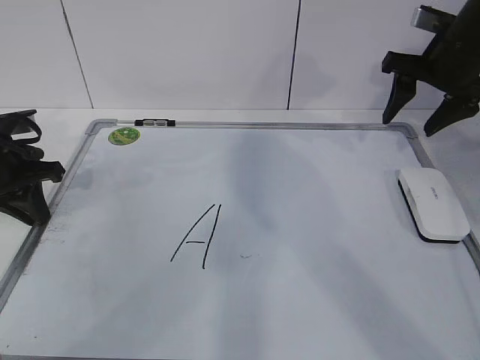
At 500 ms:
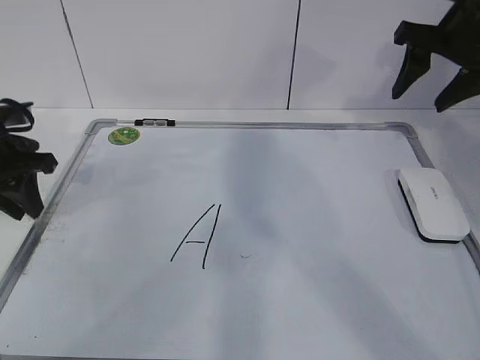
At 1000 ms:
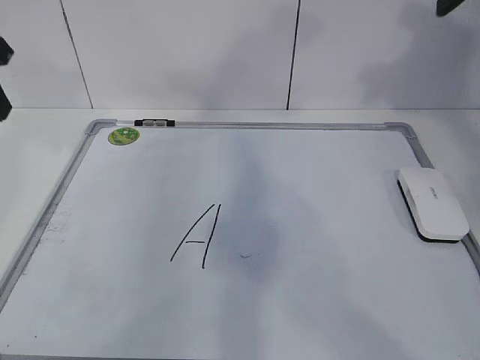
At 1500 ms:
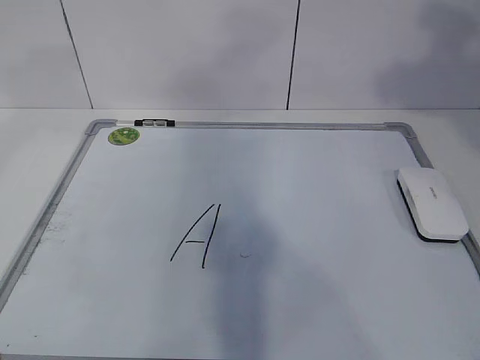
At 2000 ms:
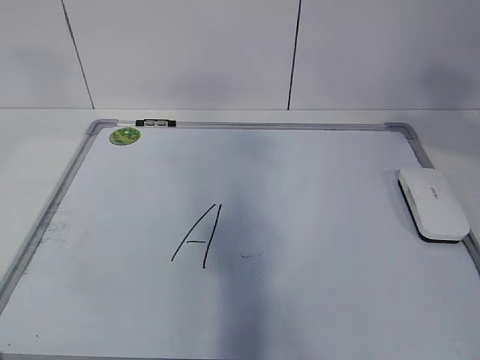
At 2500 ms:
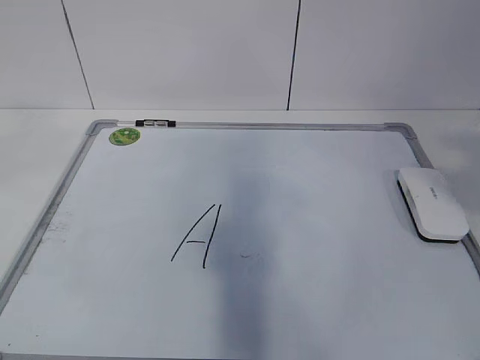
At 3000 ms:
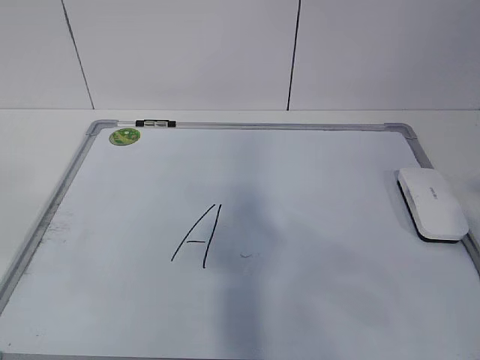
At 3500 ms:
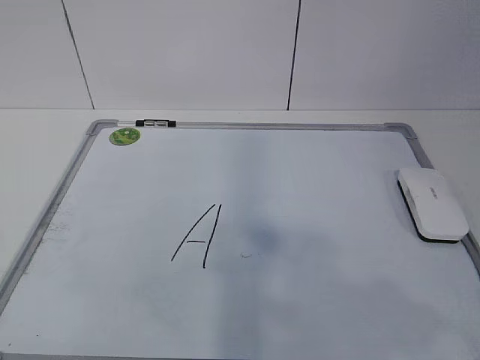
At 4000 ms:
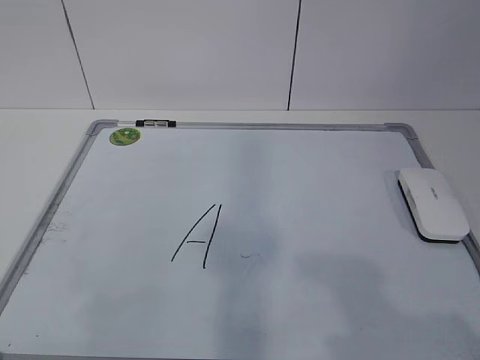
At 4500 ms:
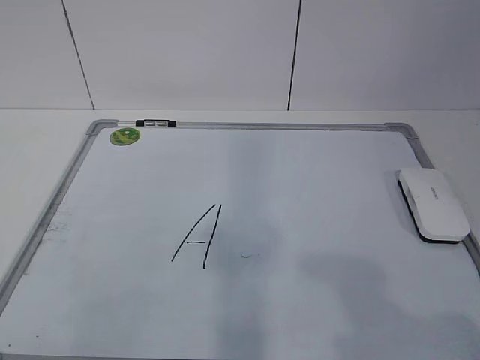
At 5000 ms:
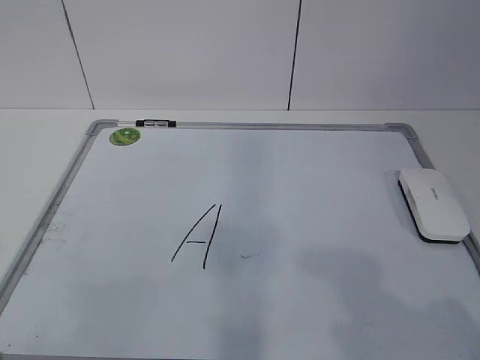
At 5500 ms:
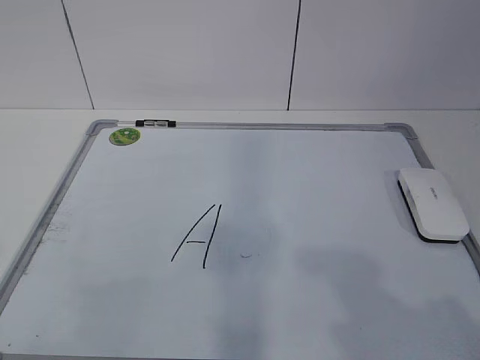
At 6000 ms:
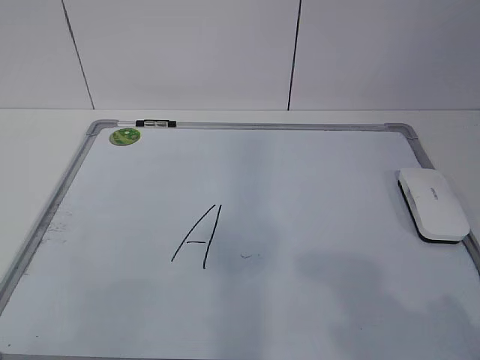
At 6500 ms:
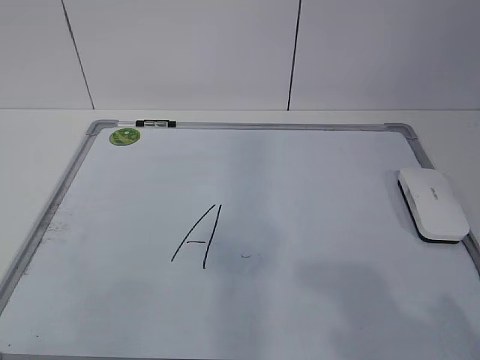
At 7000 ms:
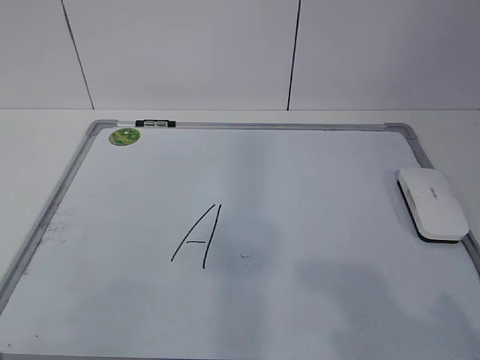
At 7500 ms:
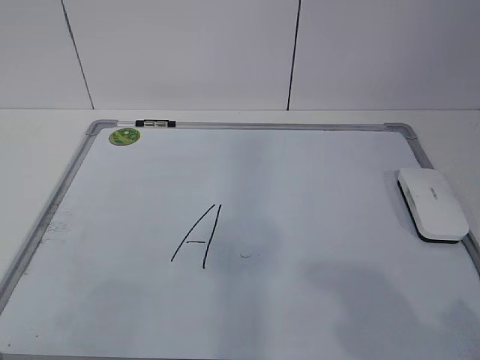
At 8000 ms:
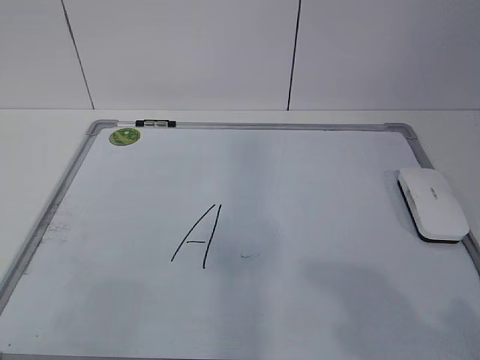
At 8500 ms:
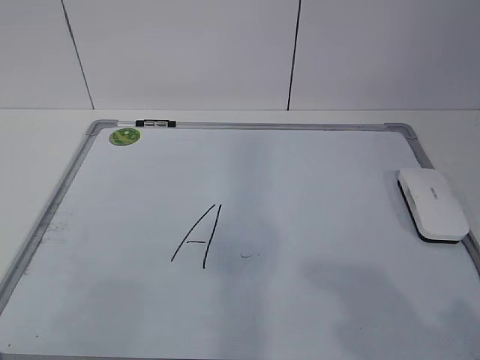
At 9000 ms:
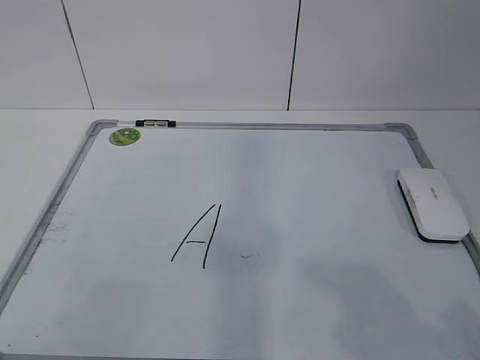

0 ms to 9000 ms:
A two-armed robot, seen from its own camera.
Task of the whole recording: pick up the eraser on the blackboard and erase the letter "a".
0 ms to 2000 ms: The left gripper shifts roughly 35 cm upward and backward, and opens up. Meanwhile the right gripper travels backward and upward by some 35 cm.
2000 ms to 4500 ms: Both grippers move downward and backward, roughly 25 cm.

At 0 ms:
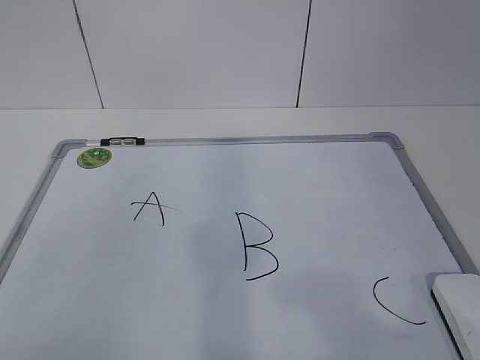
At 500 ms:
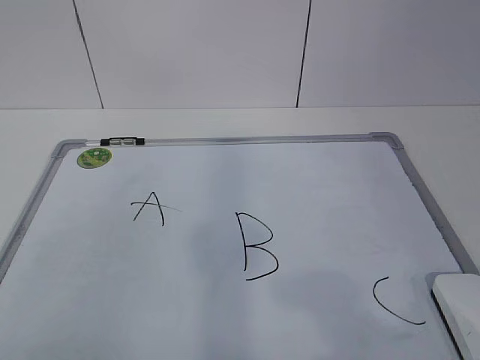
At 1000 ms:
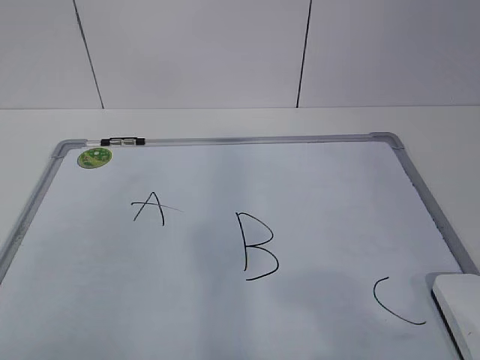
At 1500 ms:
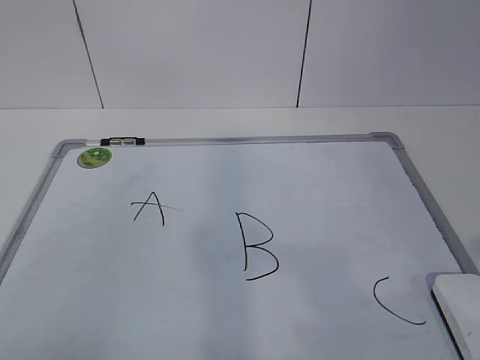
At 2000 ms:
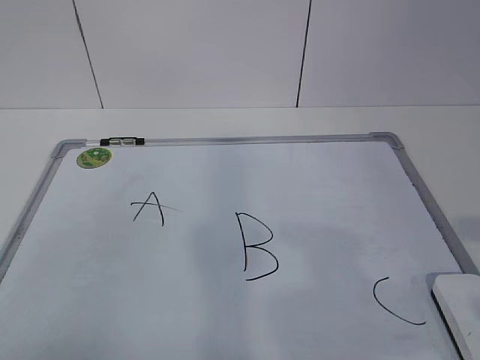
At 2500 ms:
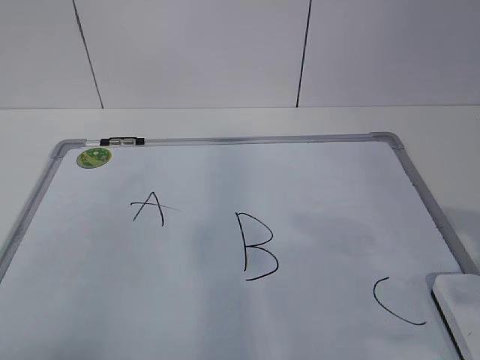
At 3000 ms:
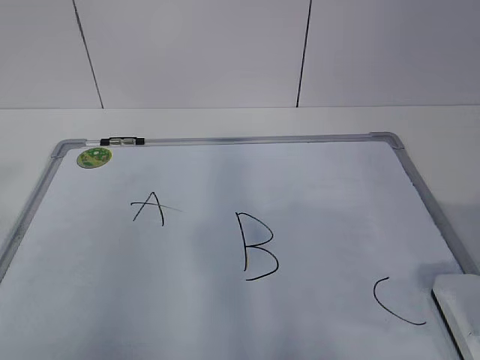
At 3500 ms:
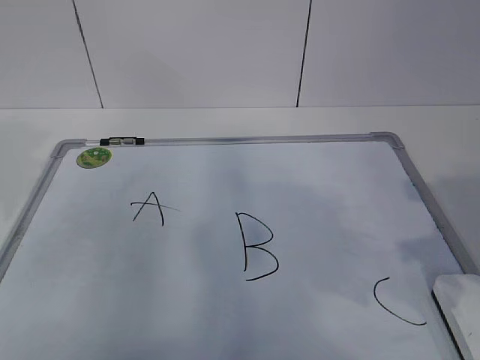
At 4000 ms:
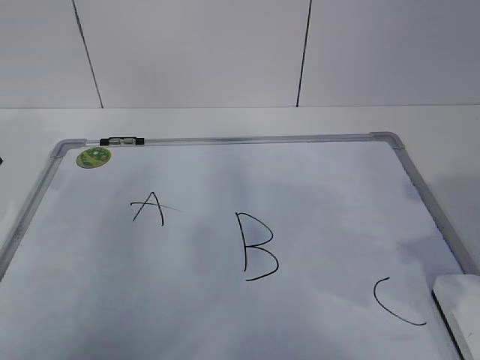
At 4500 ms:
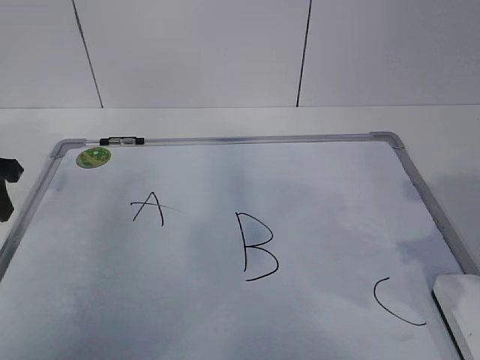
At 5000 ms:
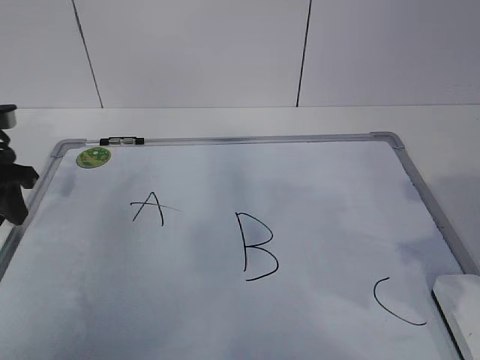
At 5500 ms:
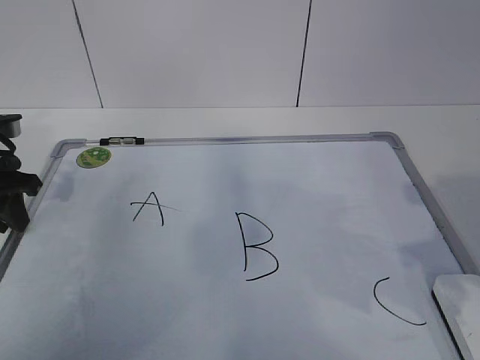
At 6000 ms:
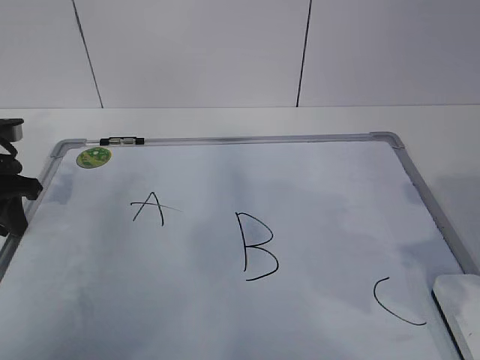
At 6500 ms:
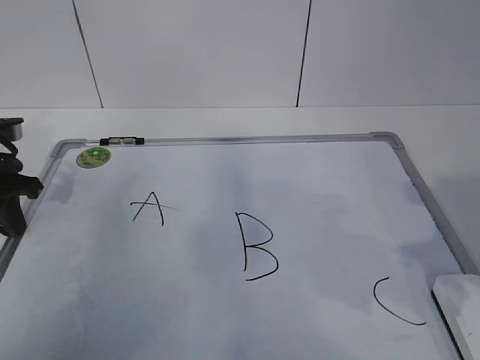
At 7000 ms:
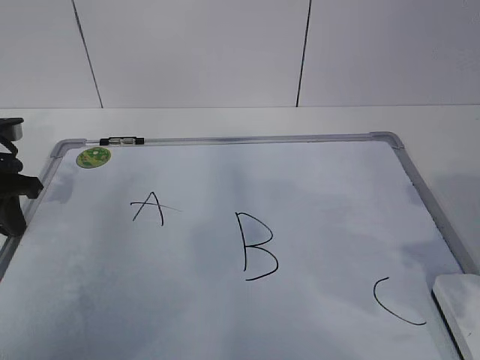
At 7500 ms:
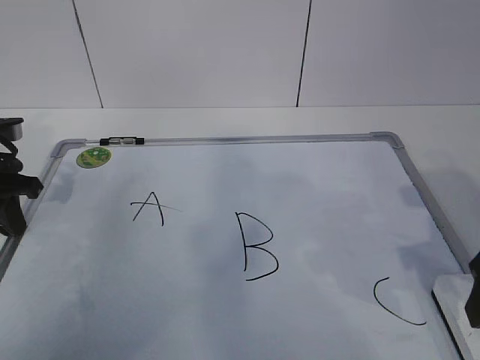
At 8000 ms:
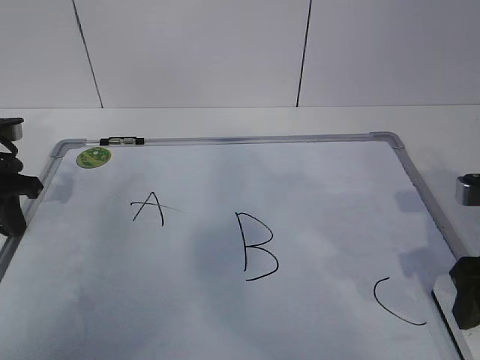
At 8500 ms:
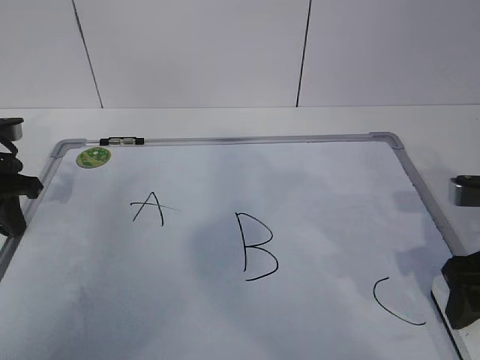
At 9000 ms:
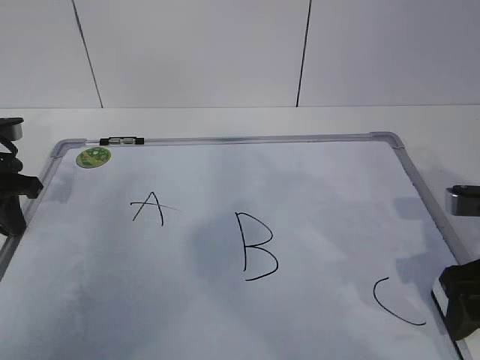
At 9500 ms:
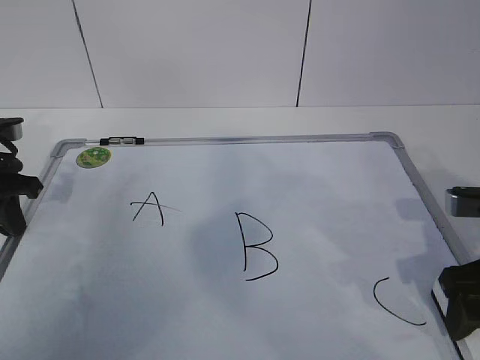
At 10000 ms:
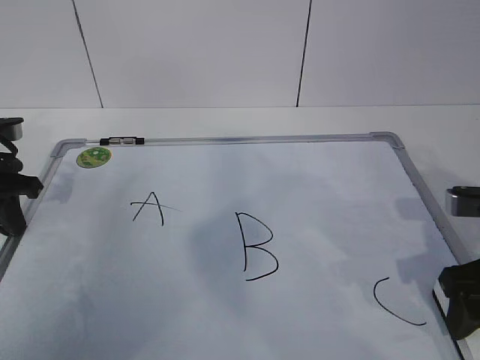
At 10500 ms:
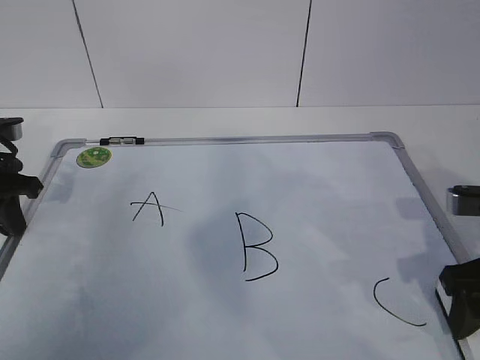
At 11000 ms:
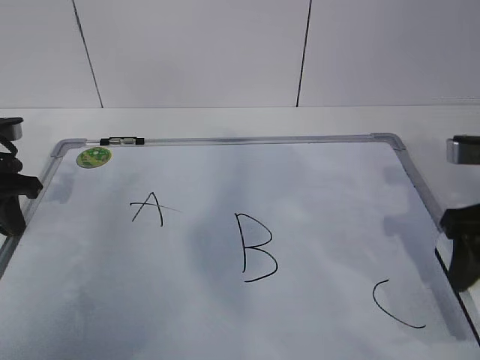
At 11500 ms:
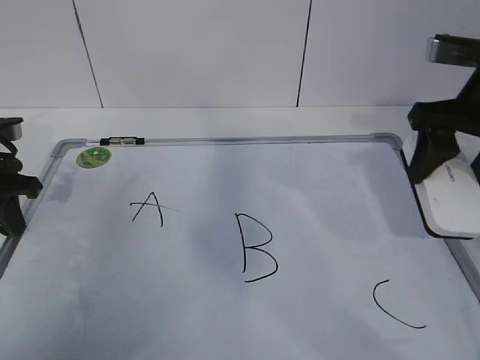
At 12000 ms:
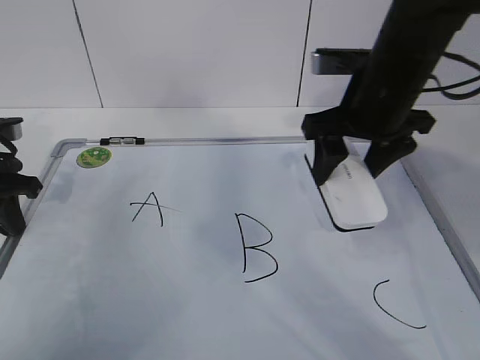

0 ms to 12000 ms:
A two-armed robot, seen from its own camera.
Task of the whole recording: pick up the eraser on the blackboard and erase the letter "B".
Step, 0 ms to 5500 ms: Hold the drawing board steady with your left hand.
Step, 6000 ms to 8000 ms: Grab the eraser with your right hand.
2000 ms to 4000 ms: The left gripper moves forward, approximately 30 cm, while the right gripper moves forward, some 10 cm.
4000 ms to 6000 ms: The left gripper travels downward by some 5 cm, and closes up.
6000 ms to 8000 ms: The right gripper heads downward and forward, covering approximately 10 cm, and opens.
8000 ms to 10000 ms: There are only small adjustments of the grippers.
10000 ms to 12000 ms: The right gripper goes roughly 20 cm forward, to the left and upward, and closes.

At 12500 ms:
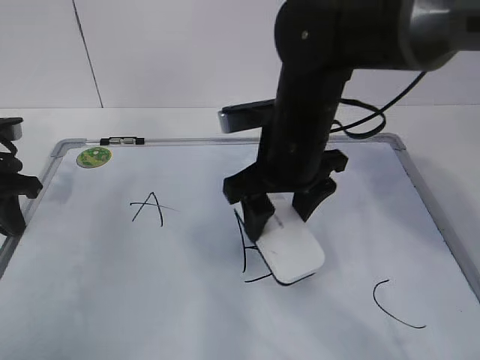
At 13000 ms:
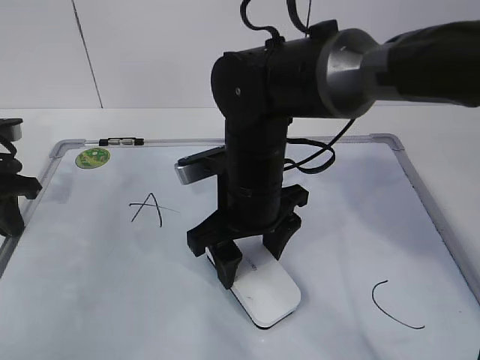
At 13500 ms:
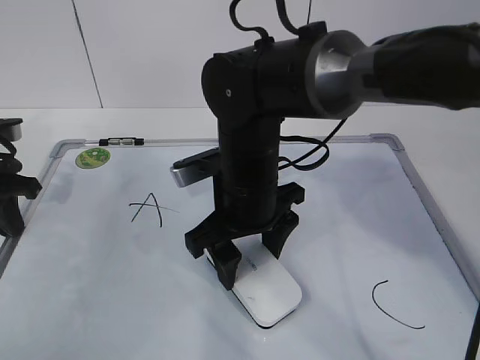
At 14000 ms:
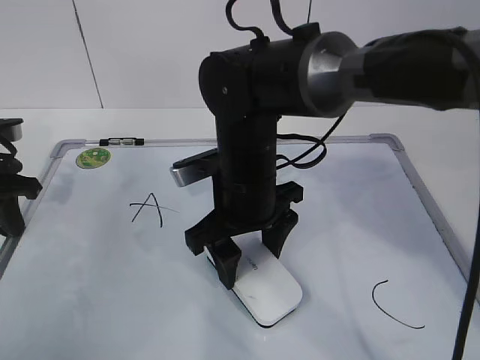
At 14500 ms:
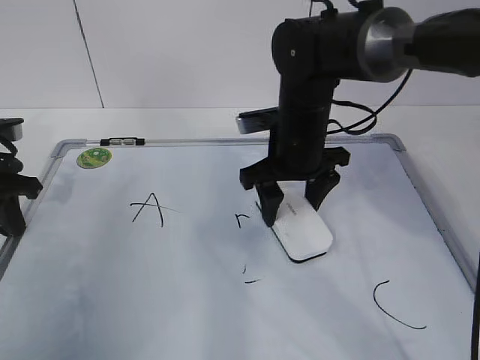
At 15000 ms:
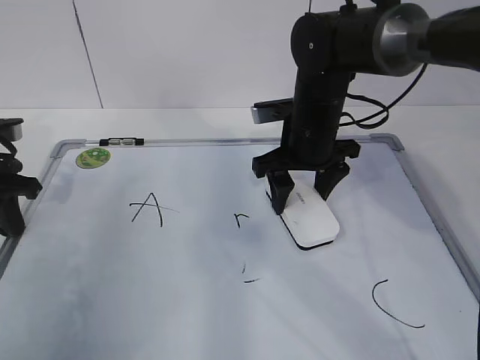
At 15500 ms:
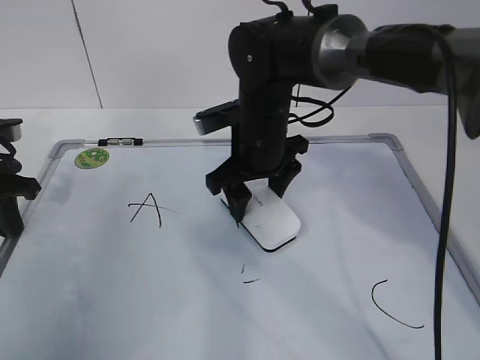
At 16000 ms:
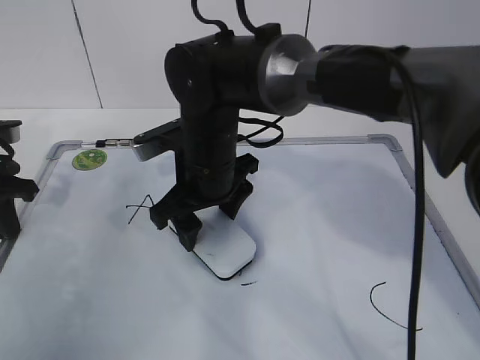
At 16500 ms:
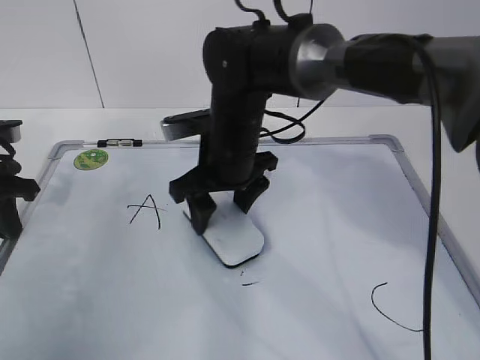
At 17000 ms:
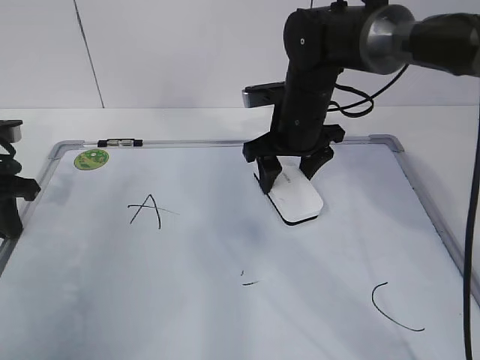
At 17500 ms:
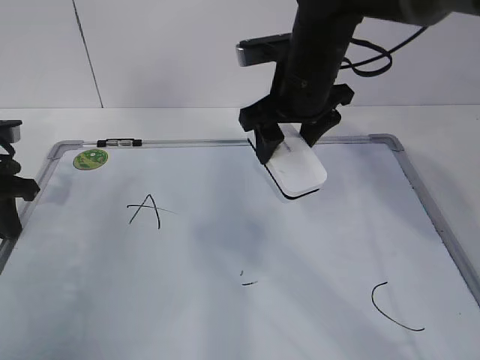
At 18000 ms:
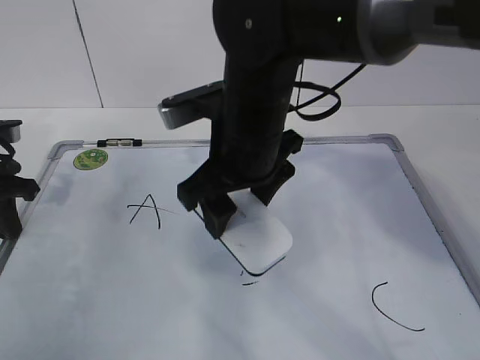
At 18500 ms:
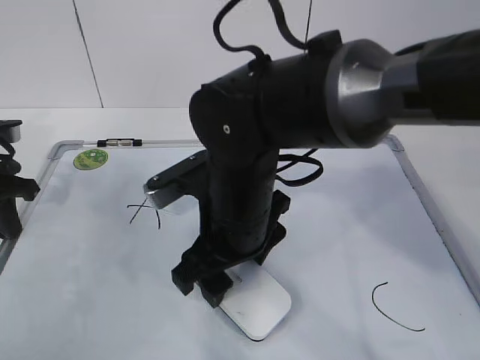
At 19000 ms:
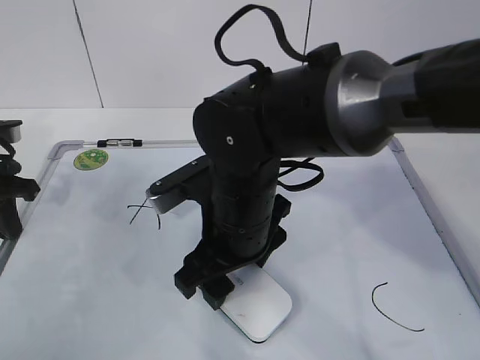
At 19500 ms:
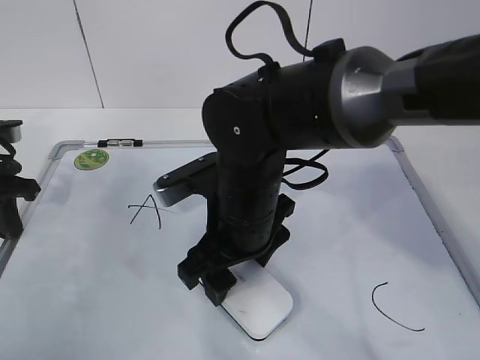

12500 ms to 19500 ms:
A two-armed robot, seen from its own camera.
Task of the whole recording: pick up the eraser on the blackboard and erase the letter "B".
Step, 12500 ms to 19000 ms: Erase the letter B with your right hand.
12500 ms to 14500 ms: The right gripper goes roughly 5 cm forward.
14500 ms to 16000 ms: The right gripper travels to the left by approximately 10 cm.
16000 ms to 17500 ms: The right gripper is displaced to the right, upward and forward by about 15 cm.
17500 ms to 19500 ms: The right gripper heads backward, downward and to the left, covering approximately 15 cm.
